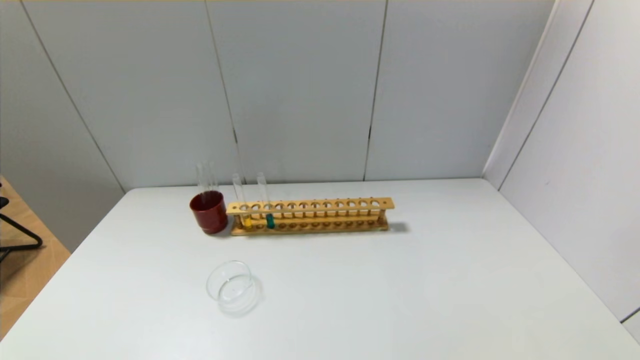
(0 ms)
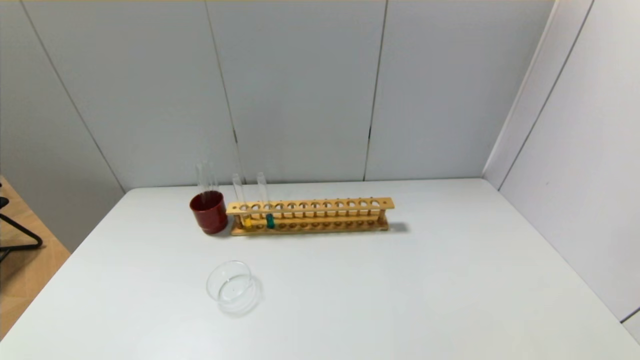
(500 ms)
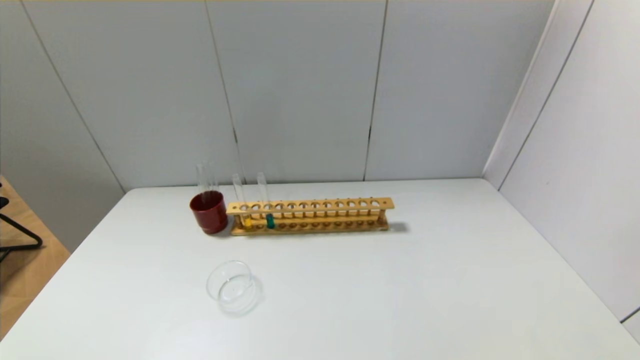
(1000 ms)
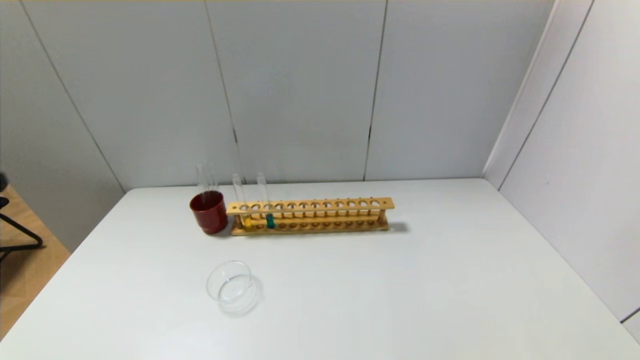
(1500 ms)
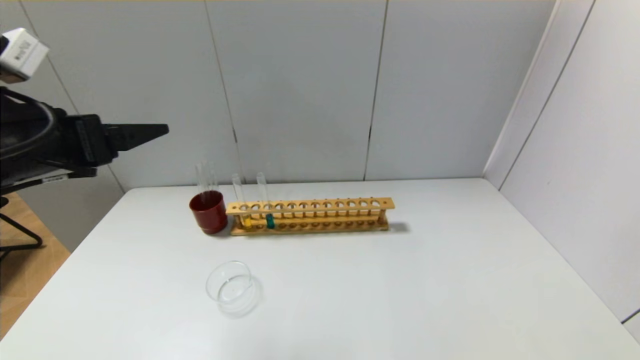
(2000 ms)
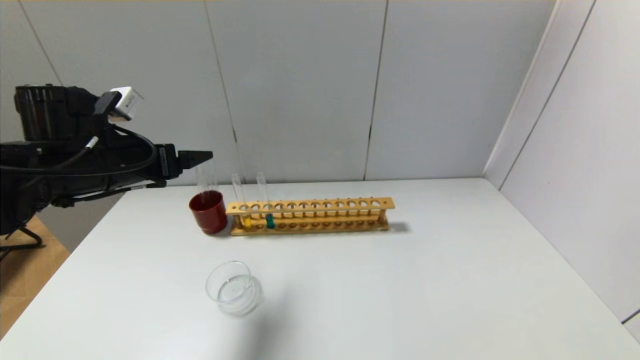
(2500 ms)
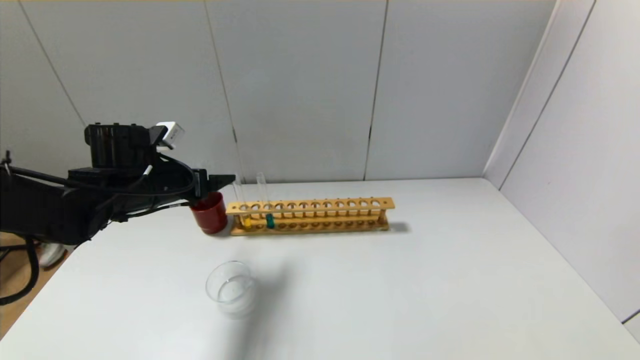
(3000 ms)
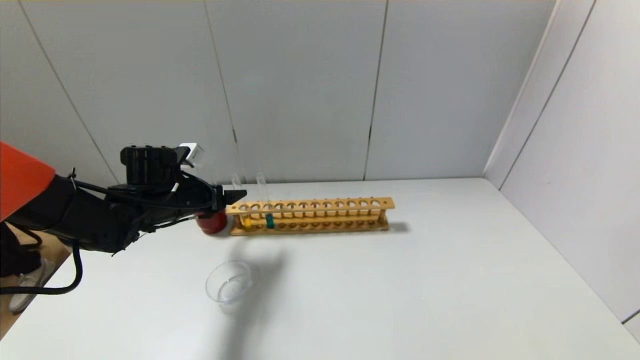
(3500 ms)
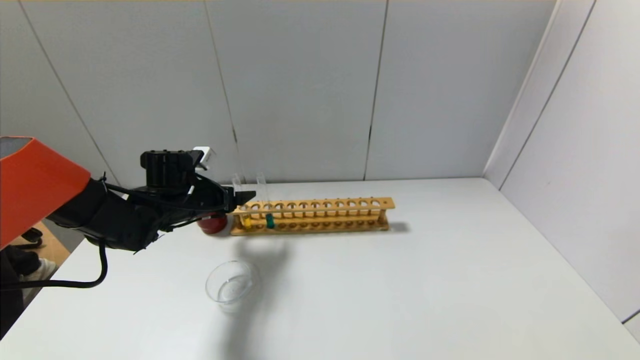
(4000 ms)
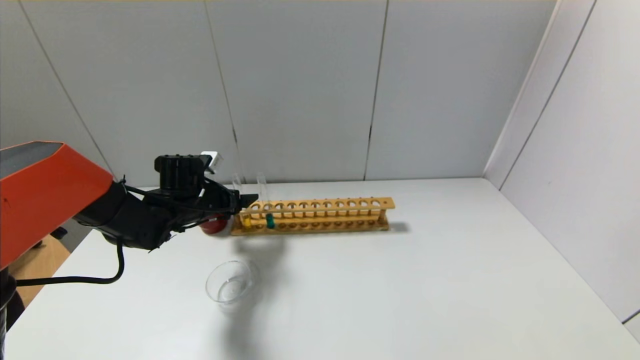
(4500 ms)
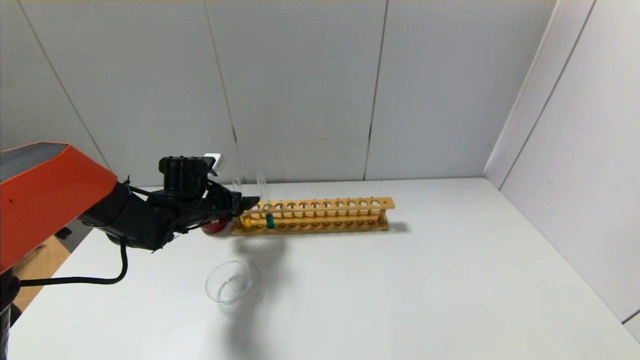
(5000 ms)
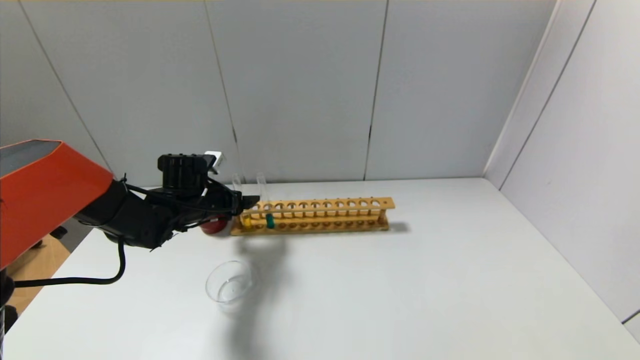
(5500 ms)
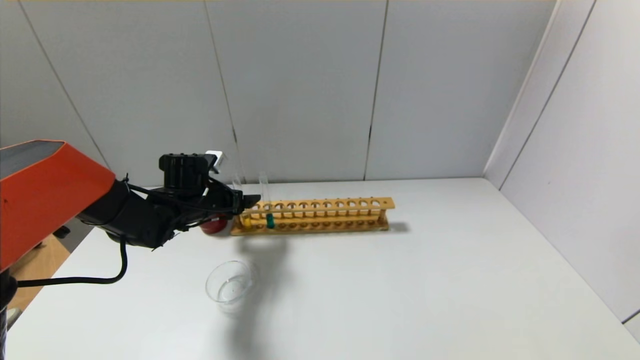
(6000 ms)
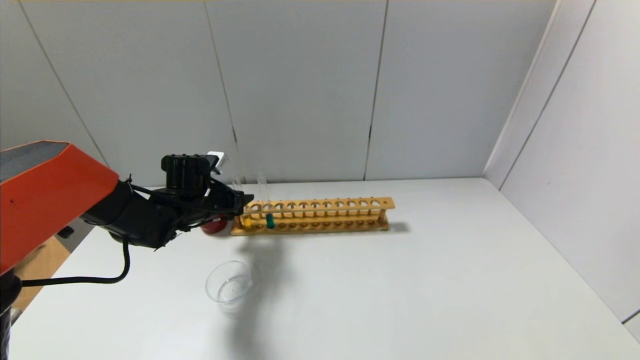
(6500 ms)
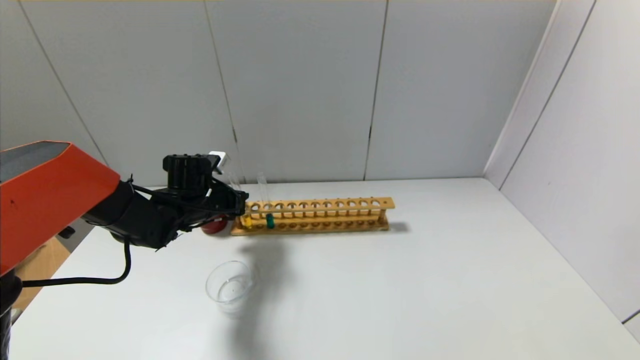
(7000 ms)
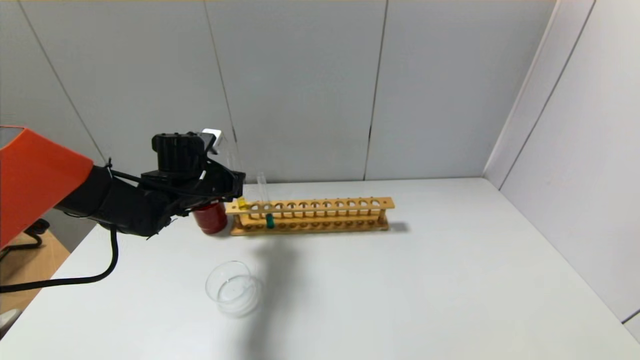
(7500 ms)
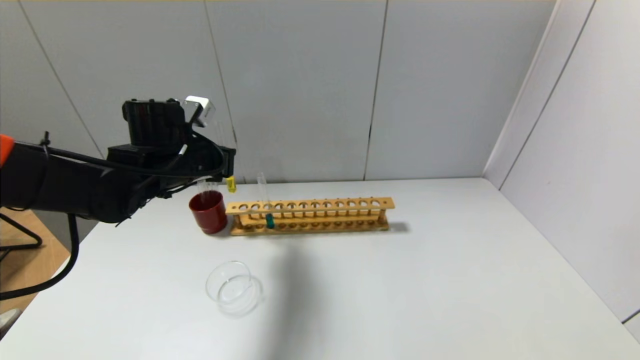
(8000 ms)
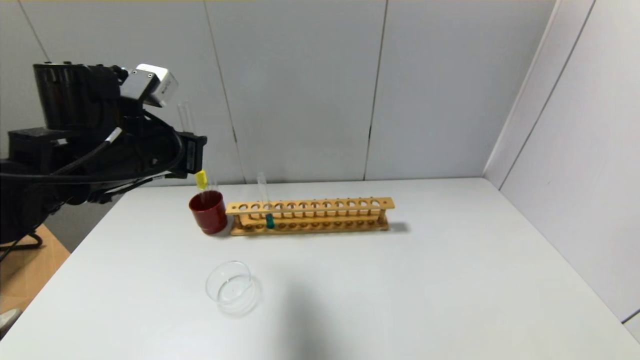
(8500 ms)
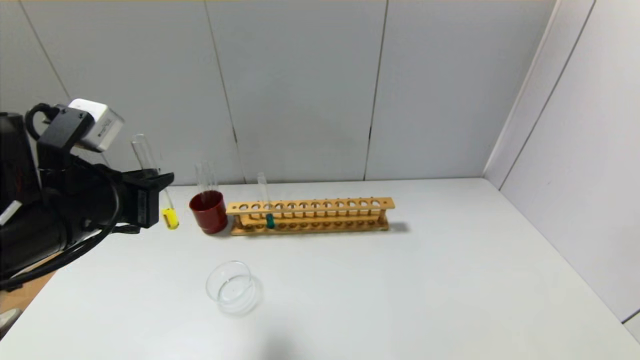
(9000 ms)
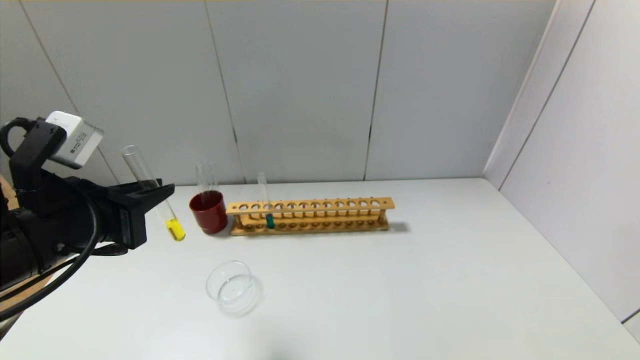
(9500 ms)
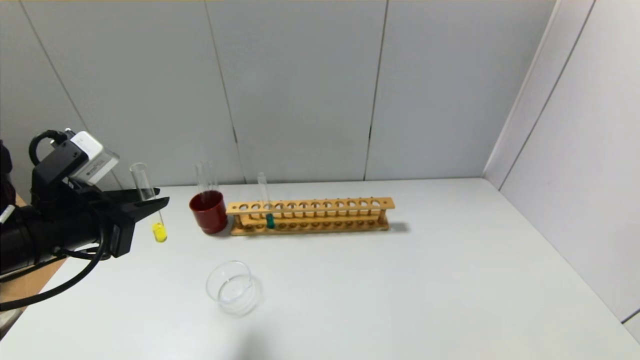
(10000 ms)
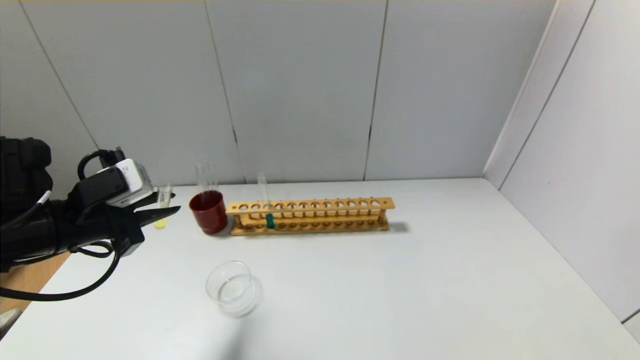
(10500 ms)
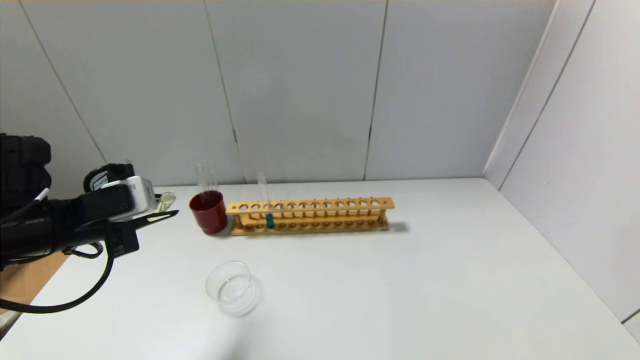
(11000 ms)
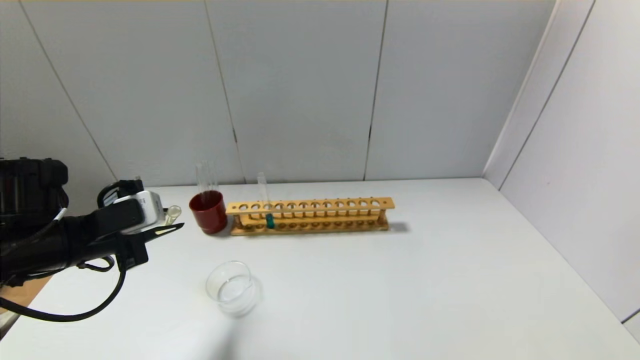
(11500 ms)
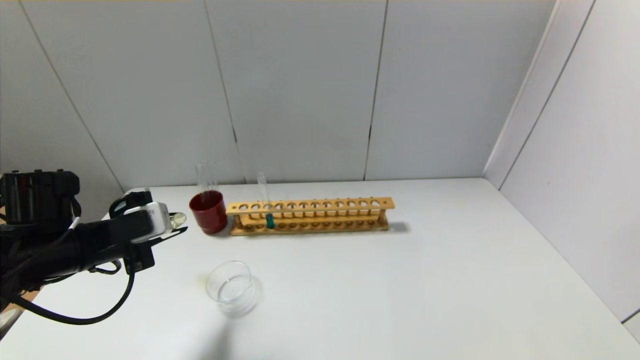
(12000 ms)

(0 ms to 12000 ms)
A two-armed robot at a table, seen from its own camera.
Step, 0 ms - 7000 ms: Grasp the yellow reagent with the left gripper.
0 ms - 2000 ms: The left gripper shifts roughly 30 cm forward and upward.
2000 ms - 4000 ms: The left gripper moves downward and forward, about 25 cm.
4000 ms - 6000 ms: The grippers stay close to where they were, moving slightly.
6000 ms - 8000 ms: The left gripper moves upward, some 10 cm, and closes its fingers.
8000 ms - 10000 ms: The left gripper shifts roughly 15 cm backward and to the left.
10000 ms - 12000 ms: The left gripper heads downward, covering about 5 cm.

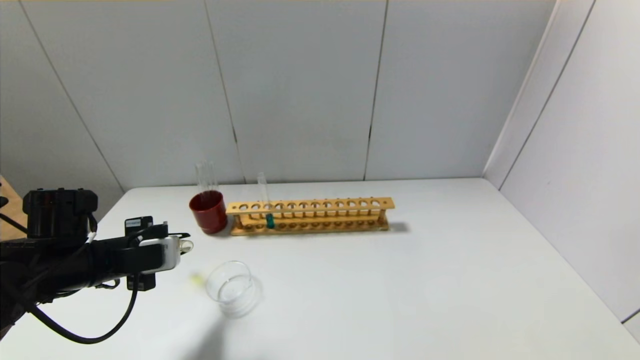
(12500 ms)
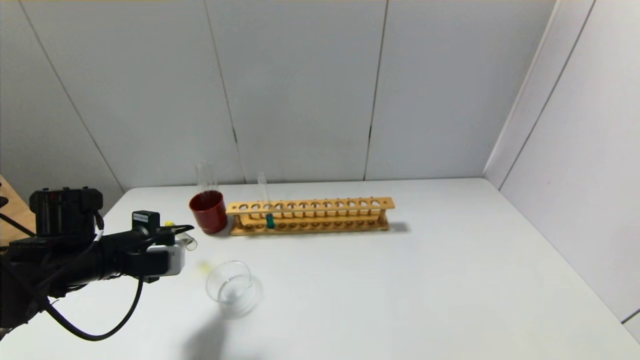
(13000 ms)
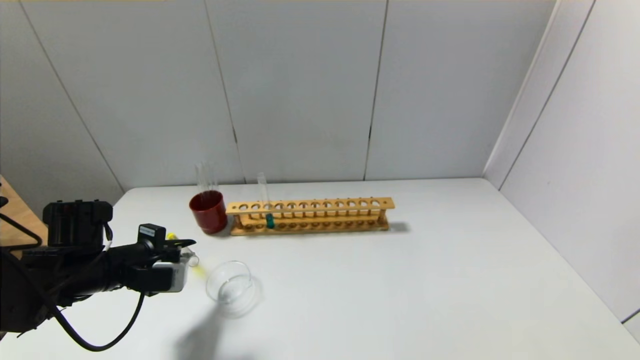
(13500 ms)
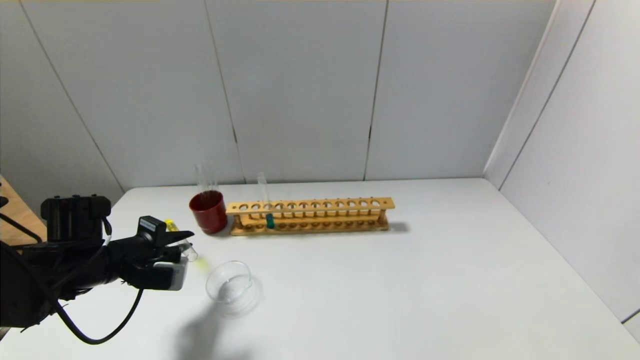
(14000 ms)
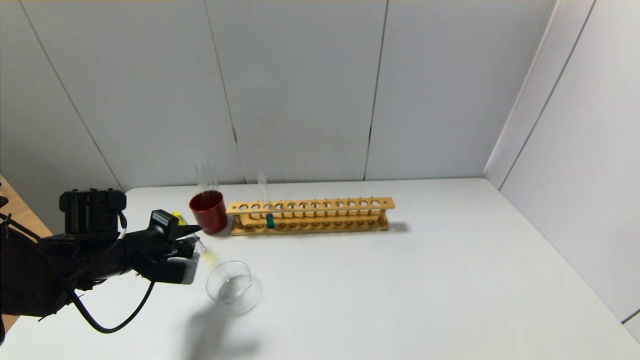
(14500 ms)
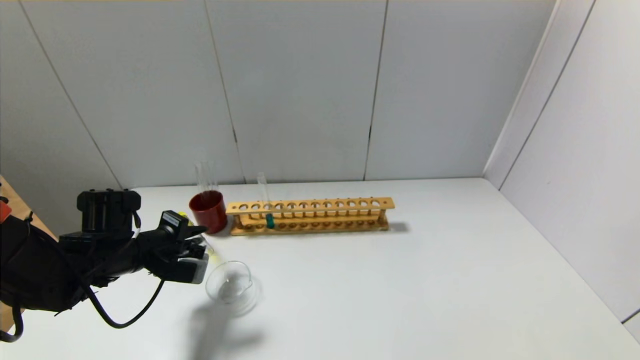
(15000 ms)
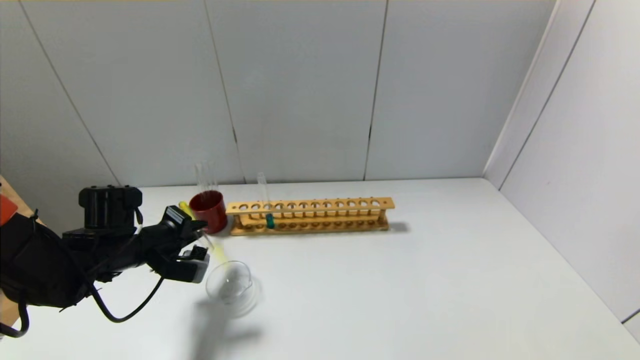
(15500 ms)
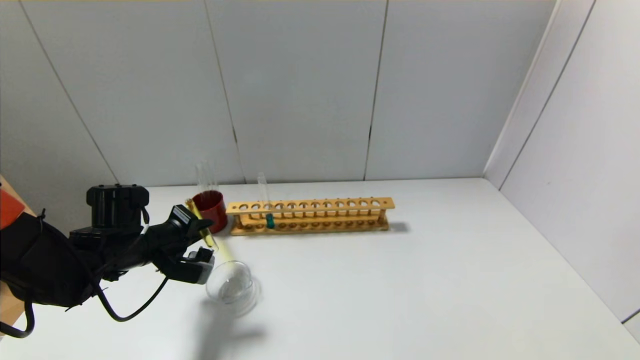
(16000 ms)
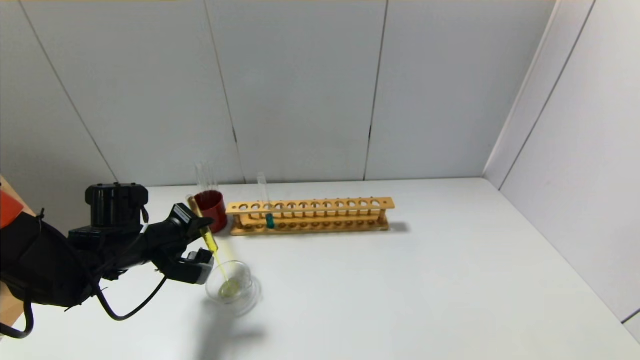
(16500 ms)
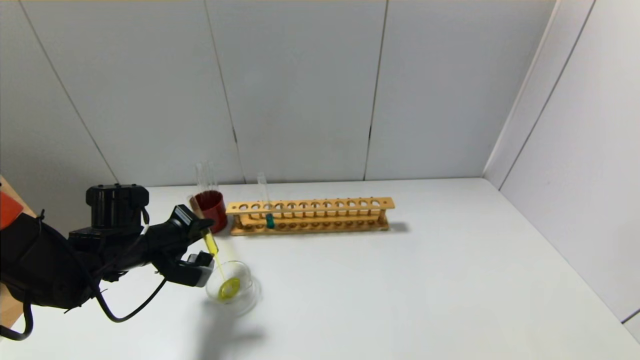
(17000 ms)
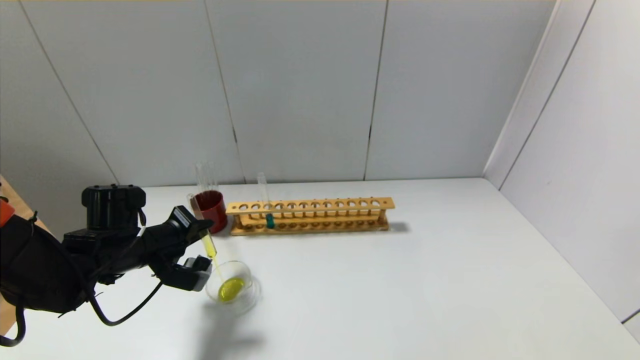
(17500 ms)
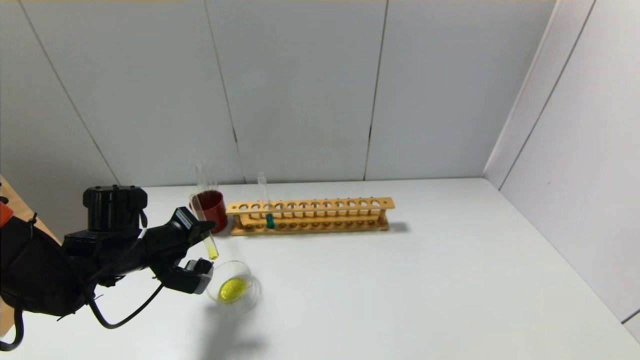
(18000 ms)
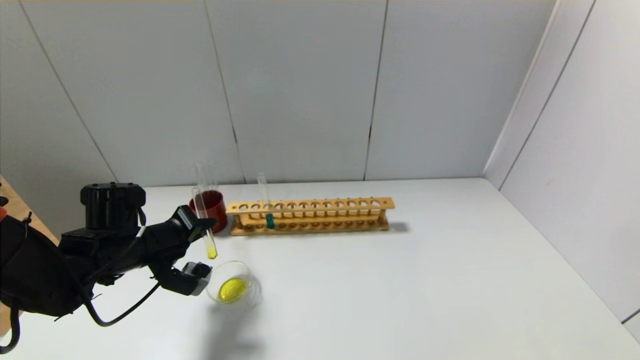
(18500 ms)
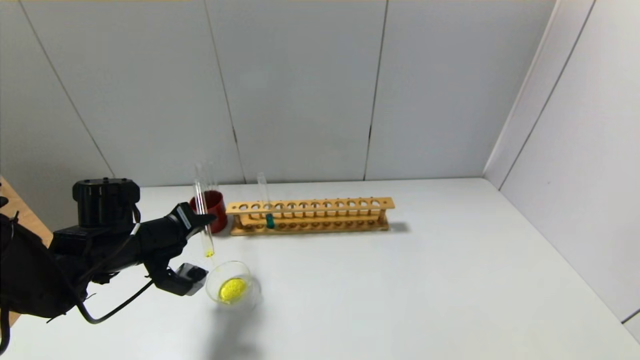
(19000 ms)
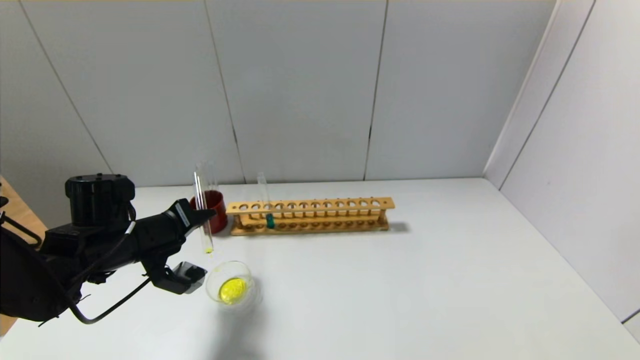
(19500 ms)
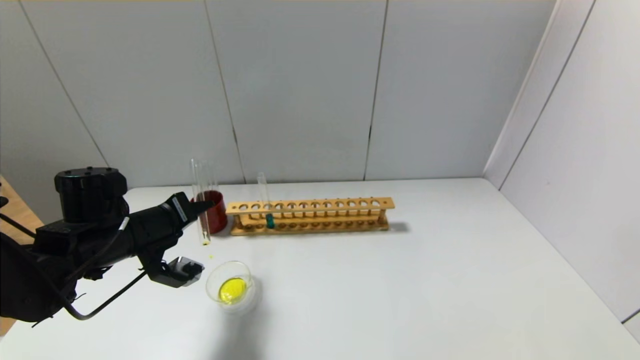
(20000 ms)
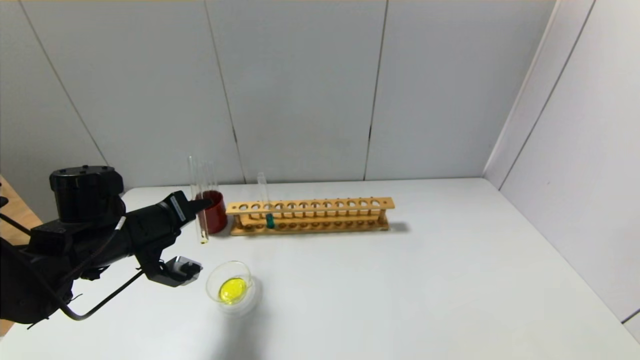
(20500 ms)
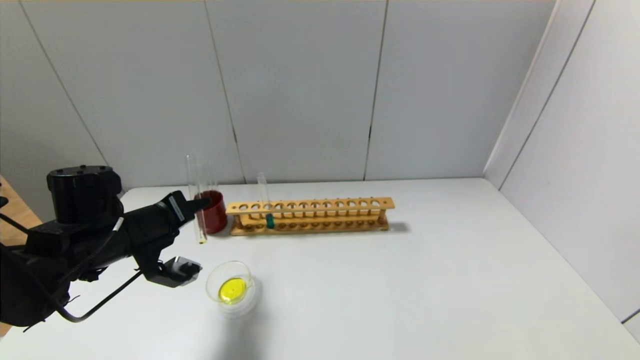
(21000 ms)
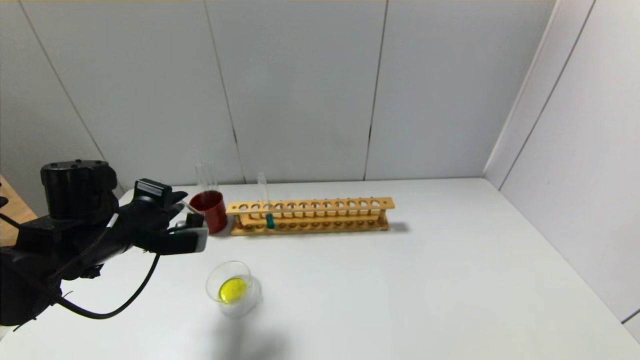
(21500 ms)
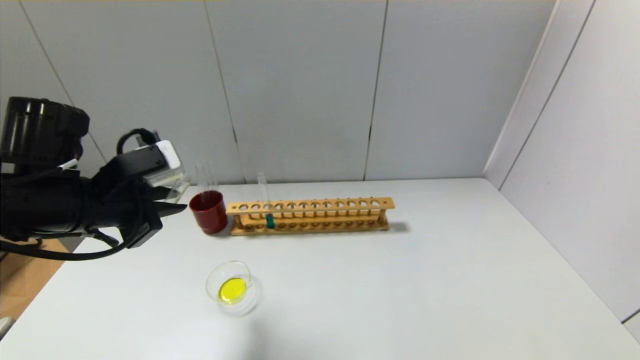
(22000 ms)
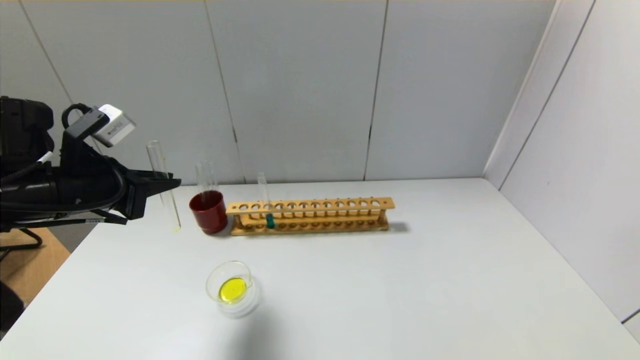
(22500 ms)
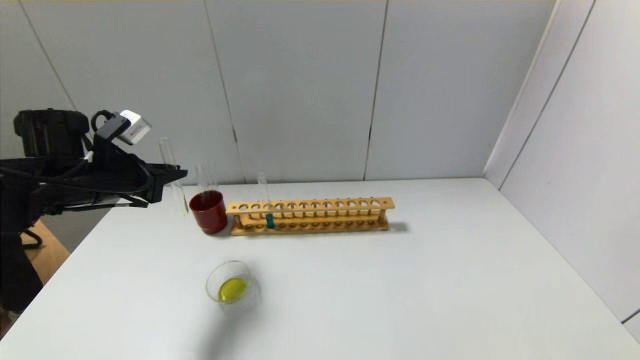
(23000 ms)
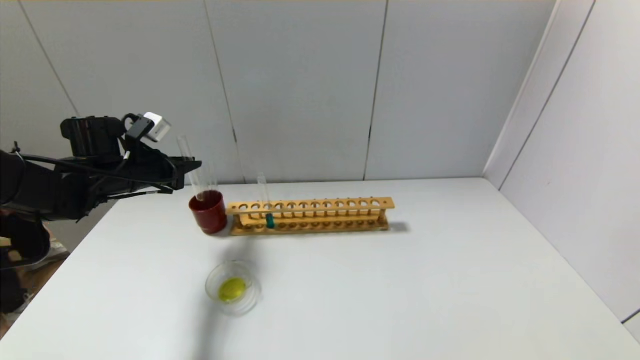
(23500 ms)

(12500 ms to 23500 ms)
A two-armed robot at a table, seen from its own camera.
Step, 12500 ms - 21000 ms: Pour the yellow reagent into the graduated cylinder with the left gripper.
14500 ms - 18000 ms: The grippers stay close to where they were, moving slightly.
21500 ms - 23500 ms: The left gripper heads forward and to the left, covering approximately 15 cm.
